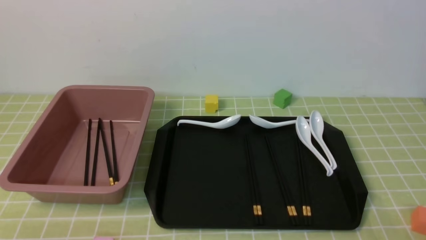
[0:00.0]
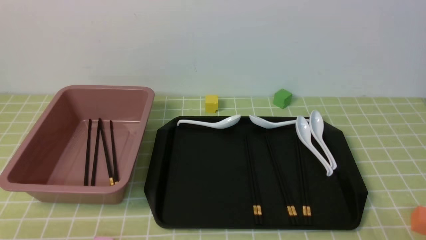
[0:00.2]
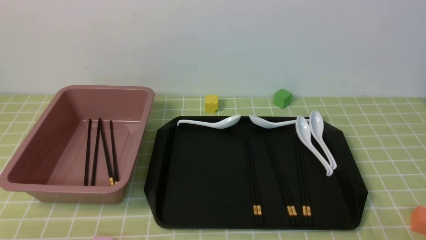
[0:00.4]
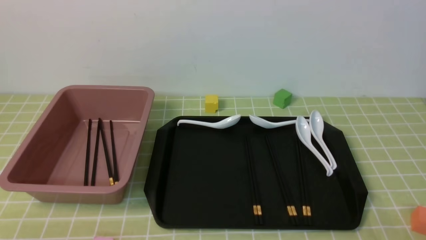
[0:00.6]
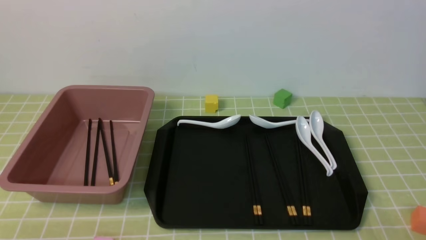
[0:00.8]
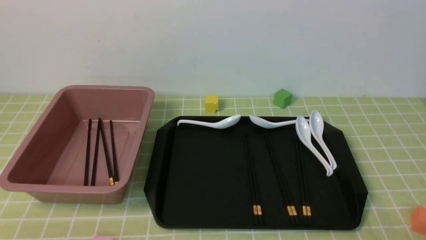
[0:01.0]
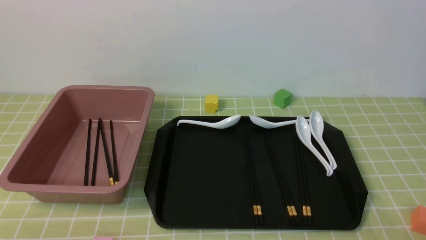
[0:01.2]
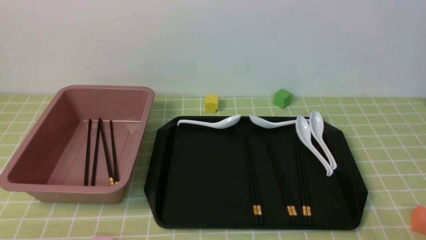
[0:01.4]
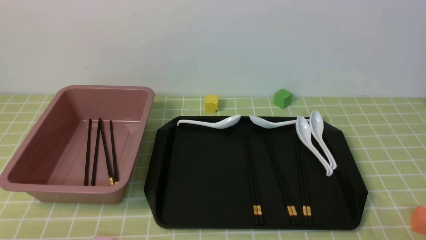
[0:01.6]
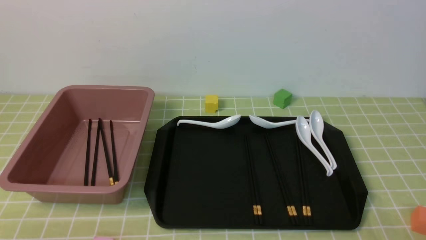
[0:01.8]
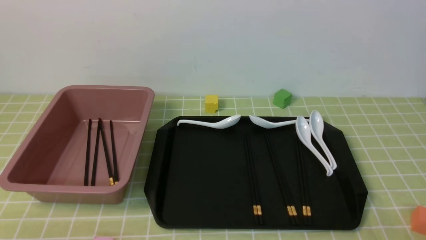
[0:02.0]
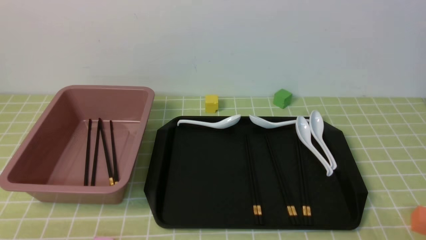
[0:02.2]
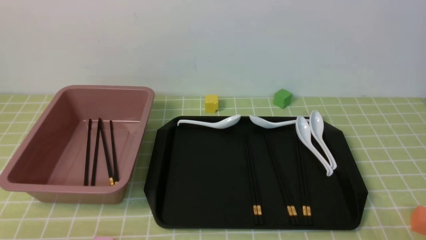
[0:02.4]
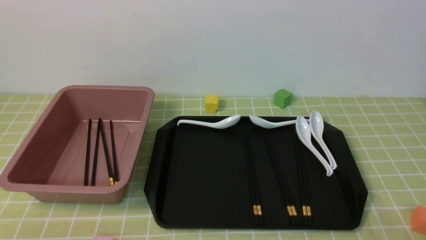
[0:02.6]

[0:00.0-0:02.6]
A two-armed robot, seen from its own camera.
0:00.0 to 0:02.6: Both grippers stay put.
